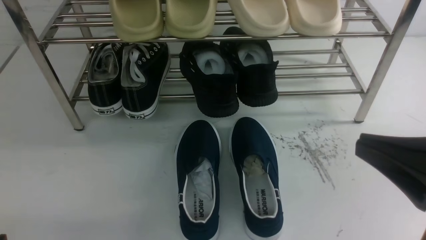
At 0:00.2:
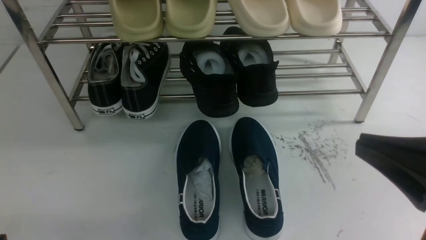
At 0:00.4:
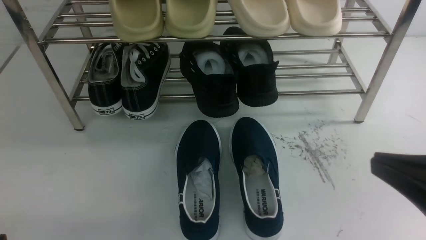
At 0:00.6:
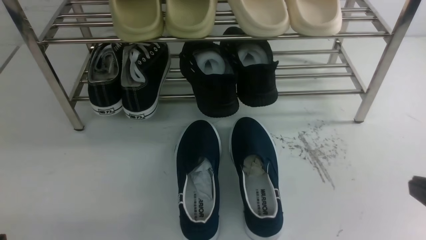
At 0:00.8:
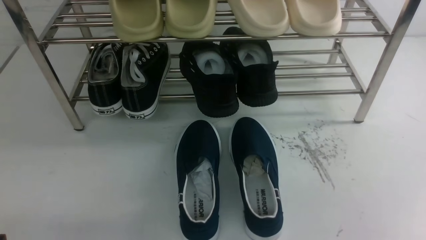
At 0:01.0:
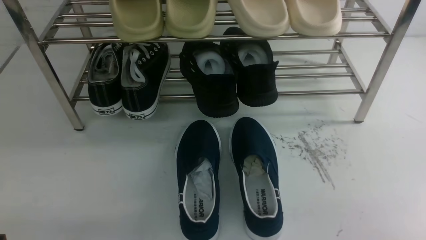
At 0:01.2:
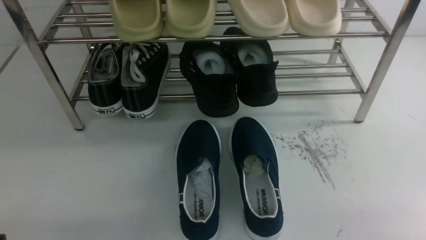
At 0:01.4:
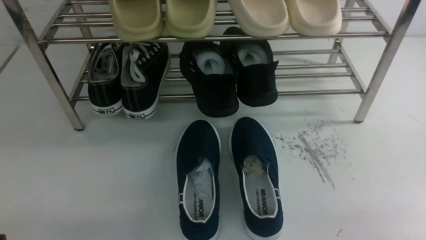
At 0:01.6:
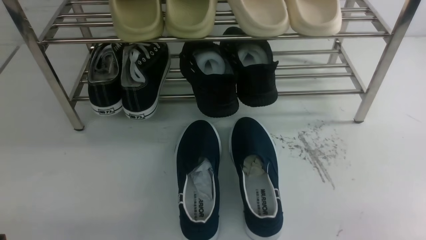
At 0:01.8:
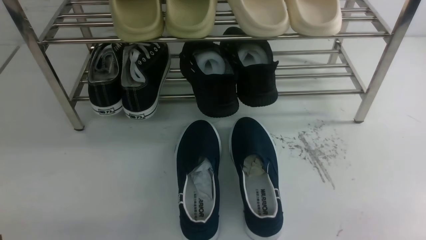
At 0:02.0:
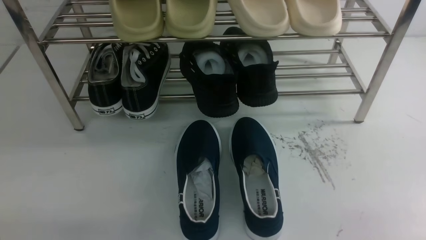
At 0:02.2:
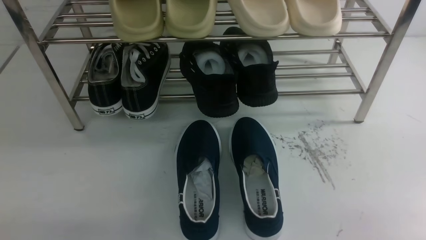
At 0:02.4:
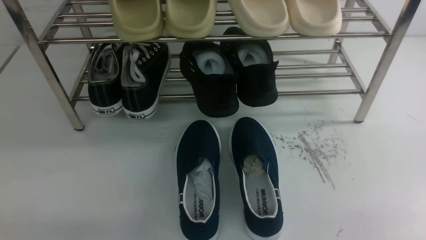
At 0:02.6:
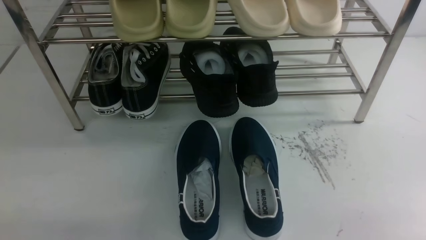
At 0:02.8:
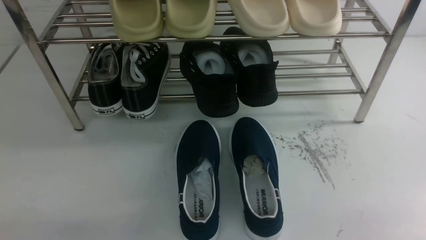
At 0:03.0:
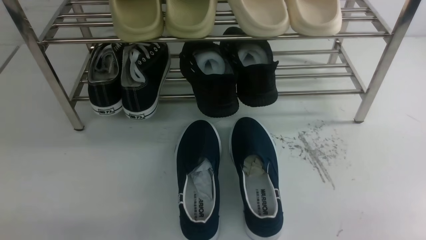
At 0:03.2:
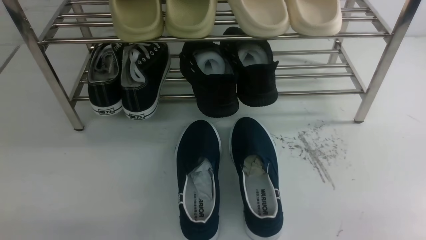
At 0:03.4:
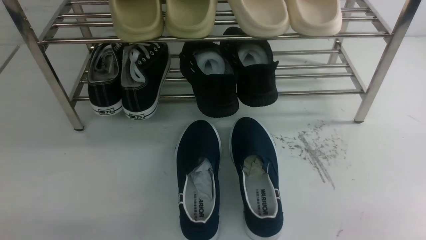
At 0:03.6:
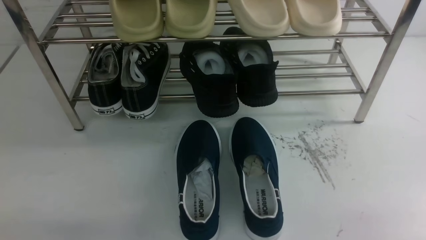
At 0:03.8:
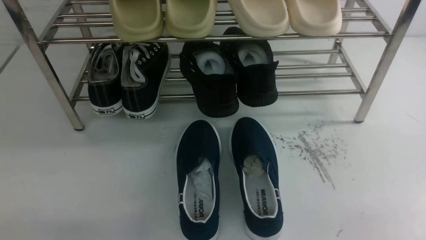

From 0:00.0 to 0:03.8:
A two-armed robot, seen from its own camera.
From 0:00.0 to 0:01.2: The right gripper is displaced downward and to the right by approximately 20 cm.
From 0:02.6 to 0:03.8: The two grippers keep their place.
